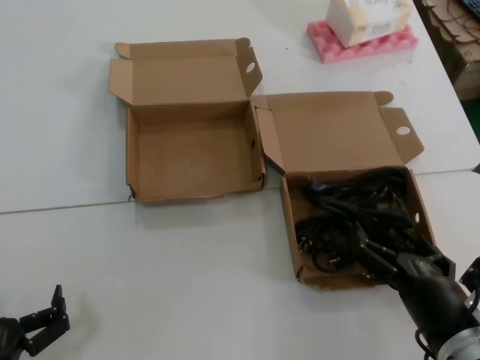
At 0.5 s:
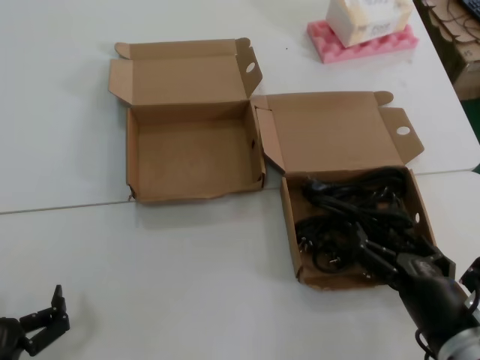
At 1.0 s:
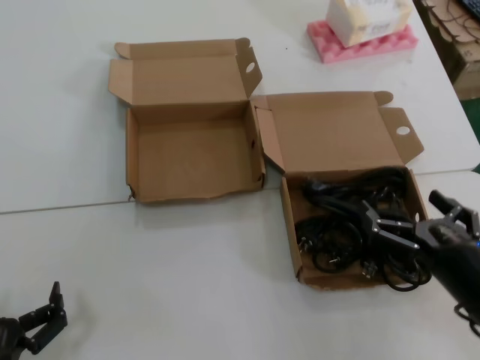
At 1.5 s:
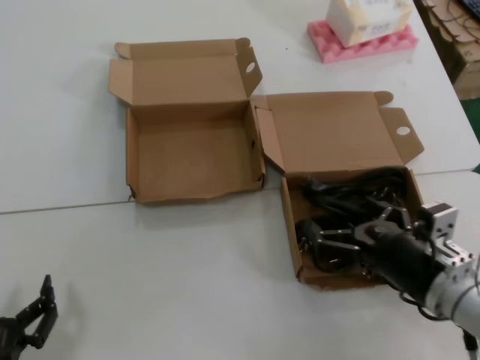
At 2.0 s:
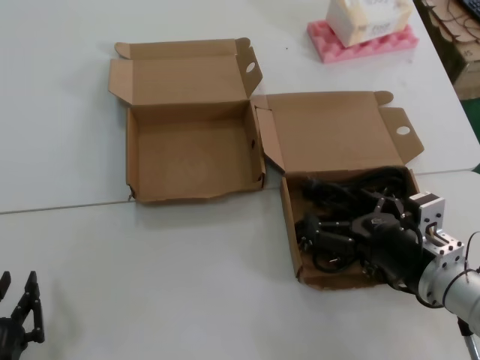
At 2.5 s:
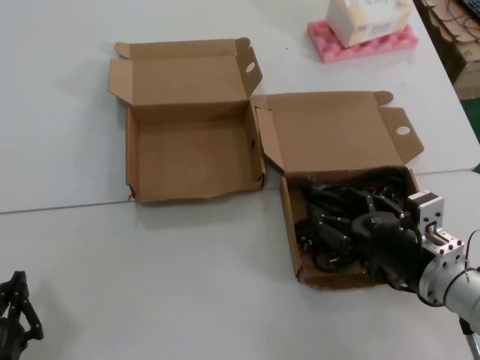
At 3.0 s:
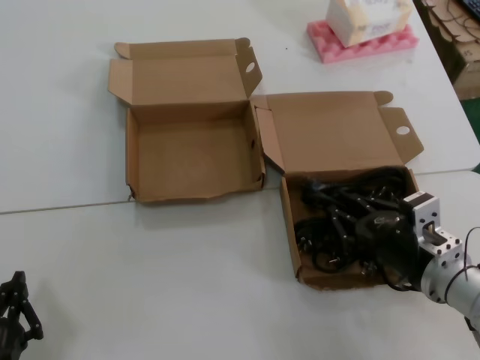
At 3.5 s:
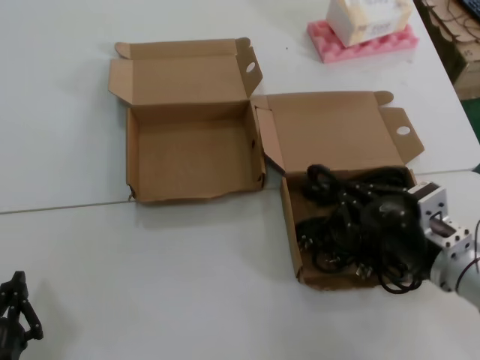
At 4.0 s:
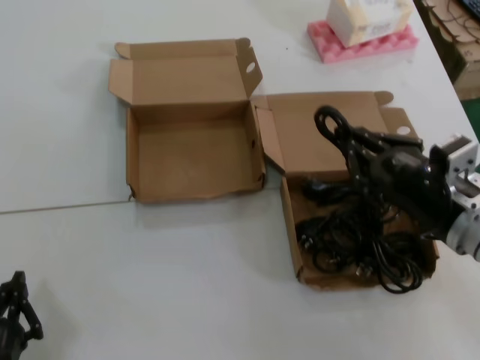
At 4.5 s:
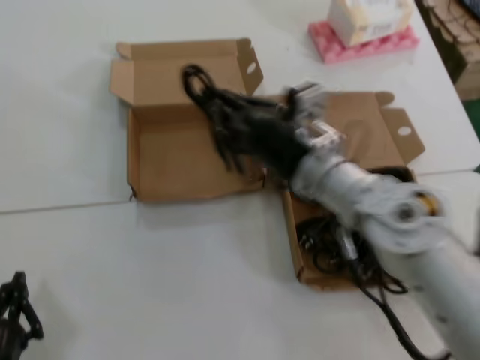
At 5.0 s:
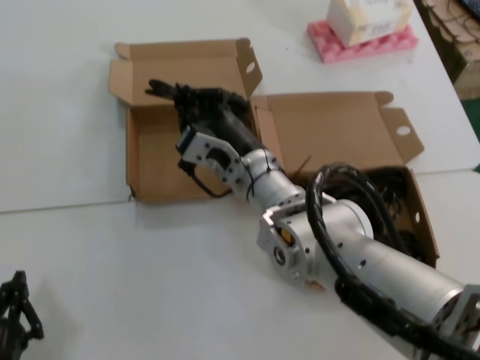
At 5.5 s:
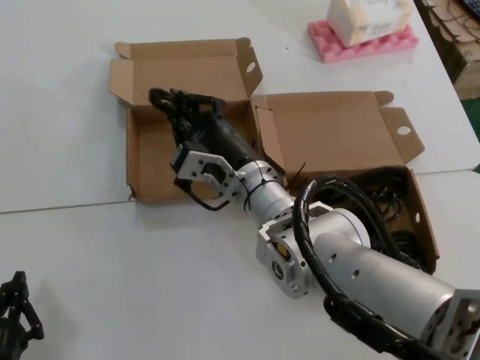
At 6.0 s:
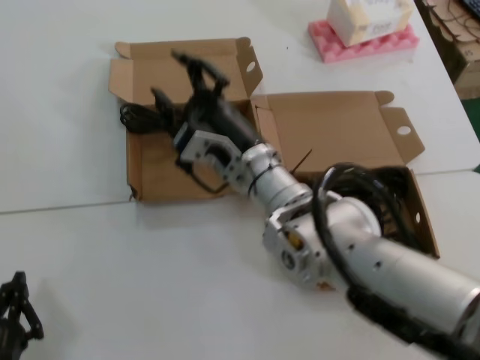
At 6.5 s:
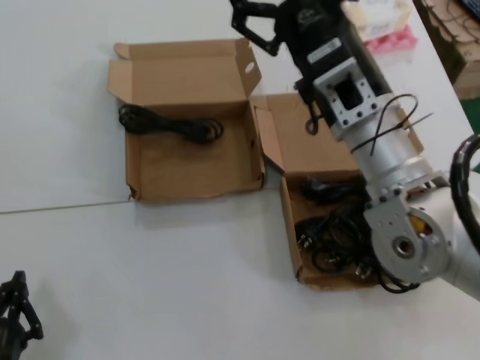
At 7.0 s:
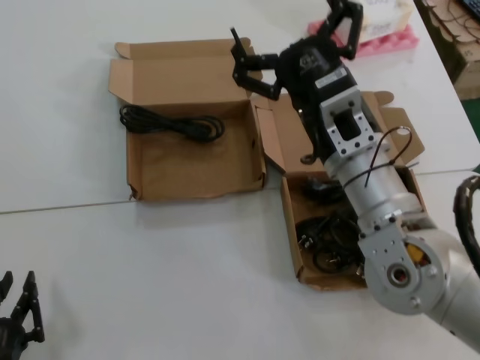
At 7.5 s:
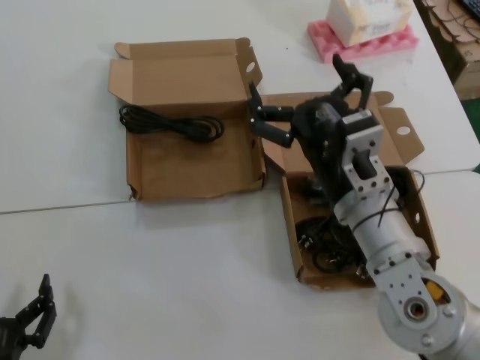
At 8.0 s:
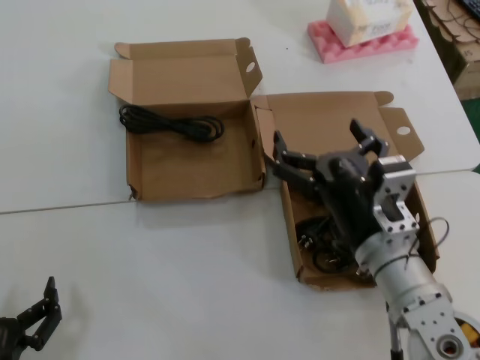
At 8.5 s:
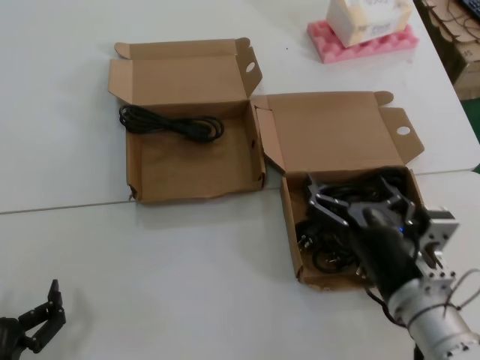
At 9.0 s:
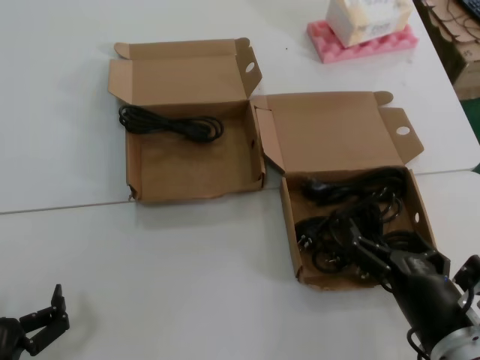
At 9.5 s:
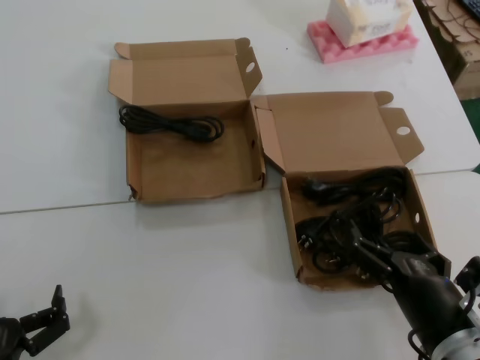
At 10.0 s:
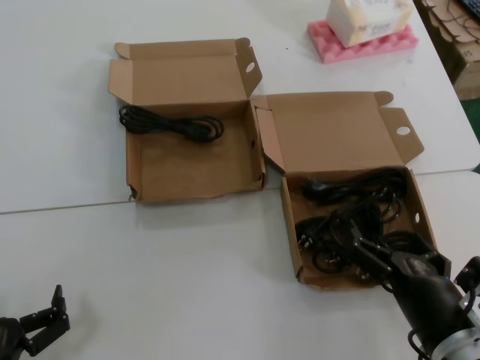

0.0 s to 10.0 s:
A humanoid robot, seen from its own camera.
Task of the whole recording: Pick up the power cord from the box containing it and place it in another box.
Step, 0.0 to 3.0 s: Grasp the data cable.
Step, 4.0 to 5.5 s: Place the data cable in the another box.
0.0 to 2.0 s: The right hand shifts about 10 cm forward.
2.0 to 4.0 s: The right hand travels upward by approximately 10 cm.
4.0 to 6.0 s: The right hand travels to the left and forward by about 25 cm.
6.0 to 8.0 s: The right hand heads backward and to the right, covering roughly 15 cm.
8.0 to 10.0 s: The right hand heads backward, downward and to the right, covering roughly 15 cm.
